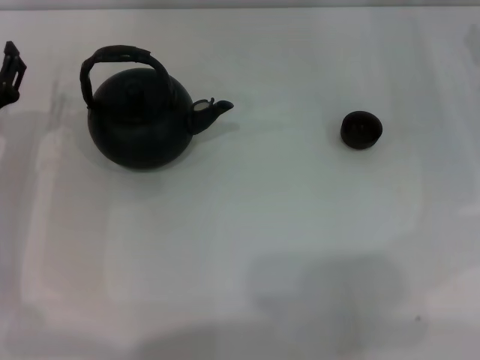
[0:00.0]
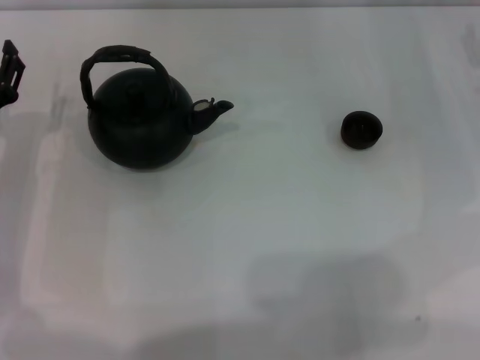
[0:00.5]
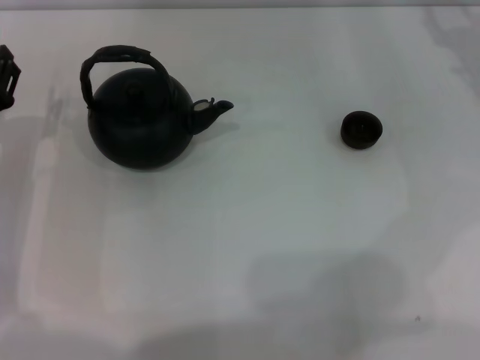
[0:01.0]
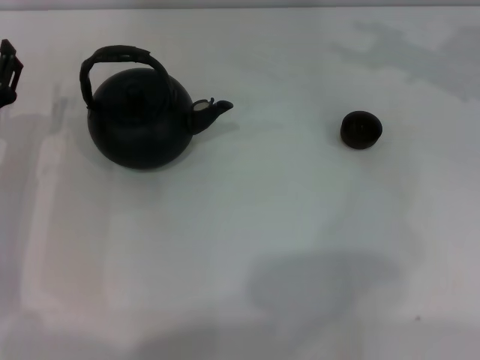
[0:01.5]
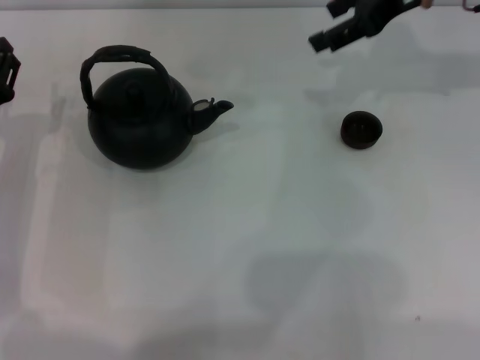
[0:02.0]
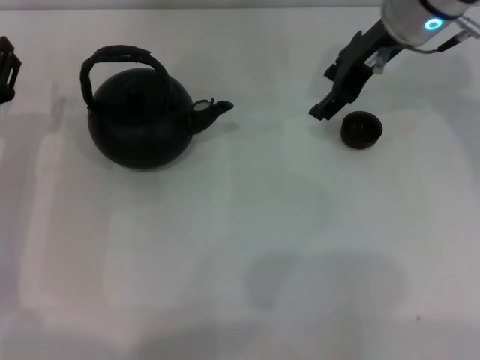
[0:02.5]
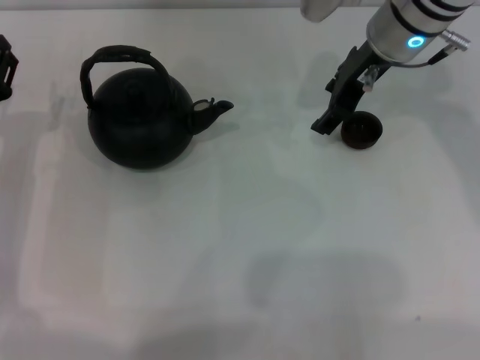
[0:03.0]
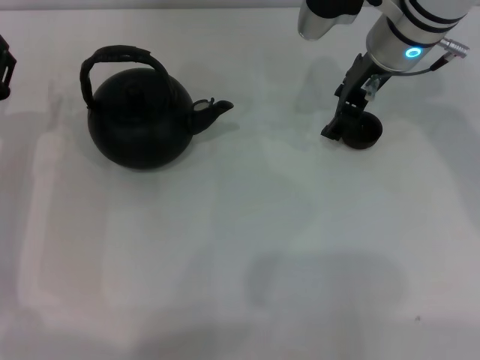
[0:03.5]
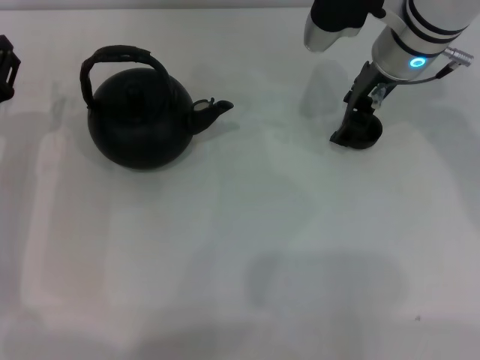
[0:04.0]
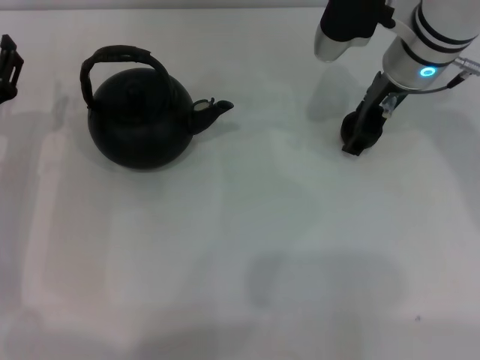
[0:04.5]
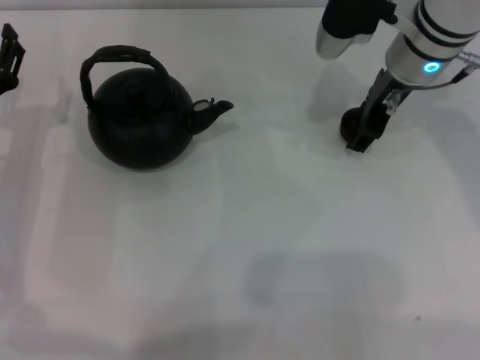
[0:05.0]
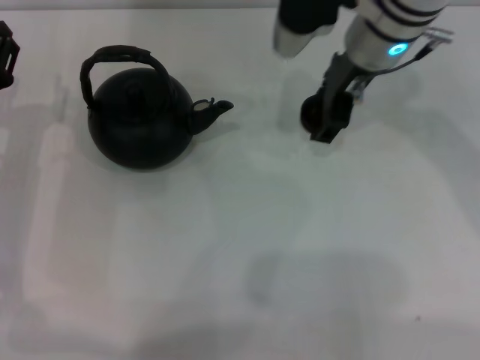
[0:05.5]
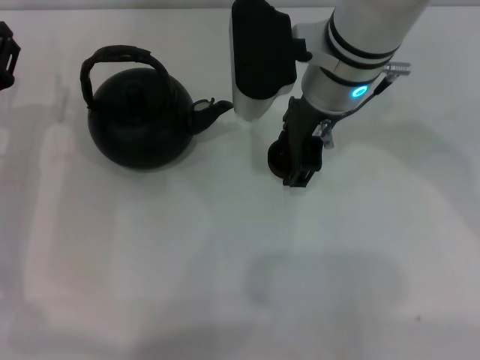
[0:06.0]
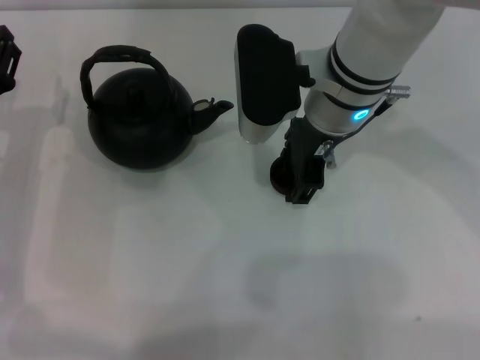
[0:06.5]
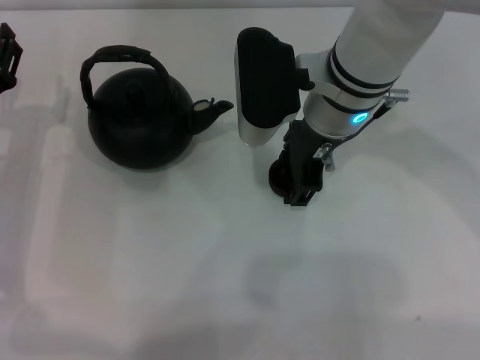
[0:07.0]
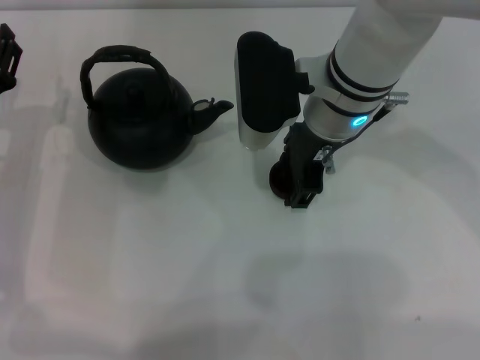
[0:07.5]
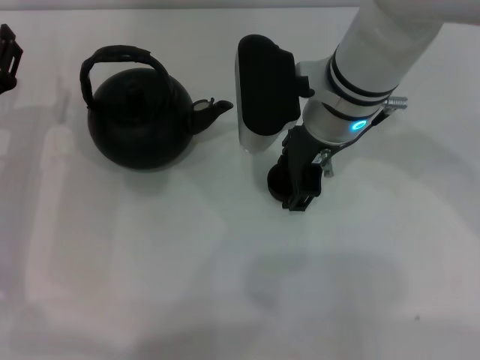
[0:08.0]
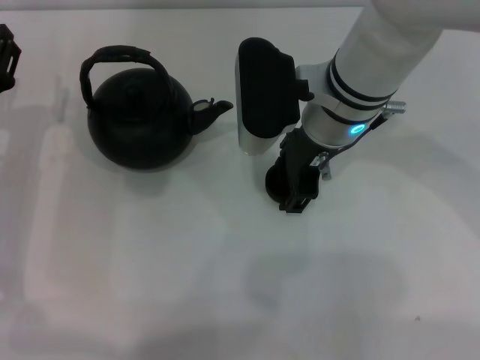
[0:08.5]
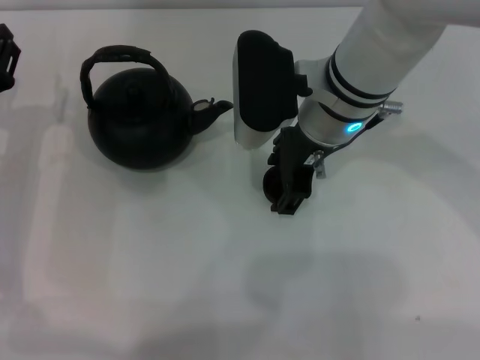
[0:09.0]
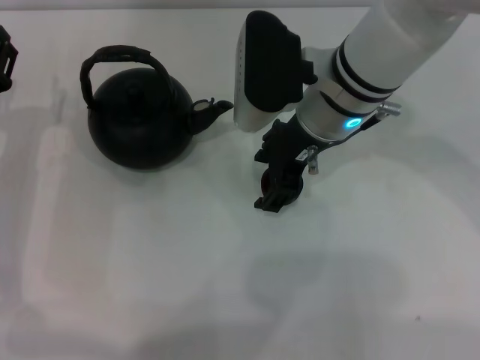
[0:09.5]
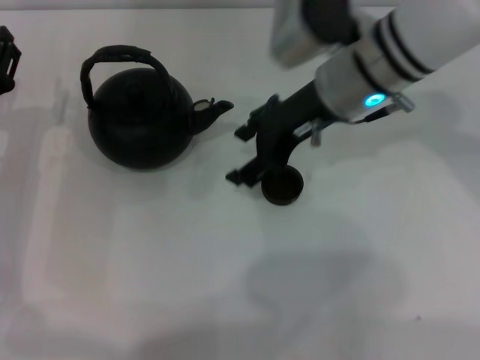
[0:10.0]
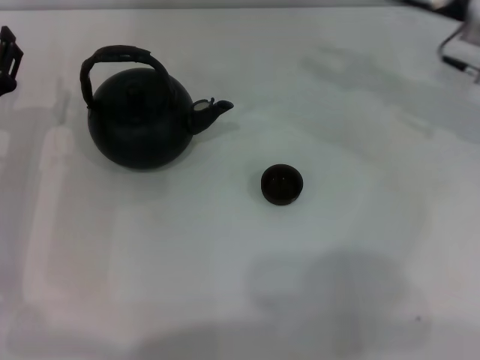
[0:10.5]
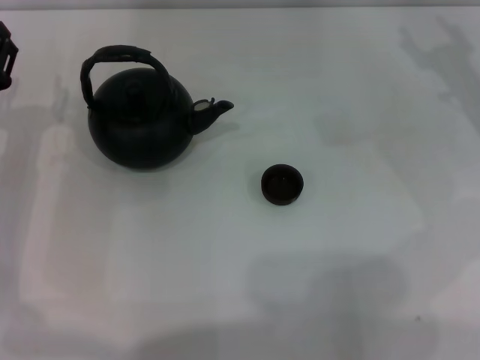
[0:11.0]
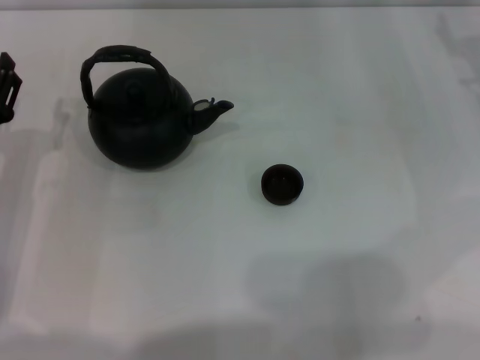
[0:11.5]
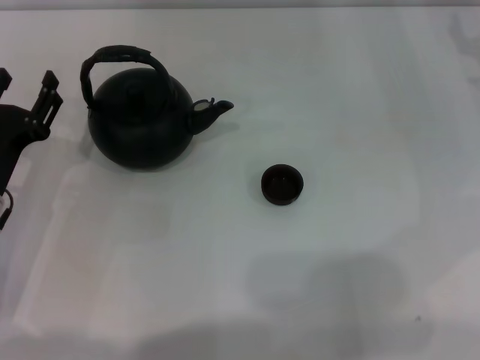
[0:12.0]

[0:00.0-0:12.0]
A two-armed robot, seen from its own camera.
Task of the whole recording: Grasp the handle of the teapot with one hand and pour tea into the teacup.
Step, 0:00.0 to 0:05.5: Pick up the teacup with the right gripper.
Step, 0:06.0 to 0:09.5: Place the teacup in the center of view with the right gripper.
0:00.0 to 0:02.0: The right gripper shifts roughly 20 cm upward, to the left and forward.
0:02.0 to 0:04.0: The right gripper is displaced downward and to the left by some 10 cm.
0:04.0 to 0:06.0: The right gripper goes some 10 cm to the left.
0:06.0 to 0:08.0: The grippers move only a little.
0:10.0 to 0:12.0: The right gripper travels to the right by approximately 20 cm.

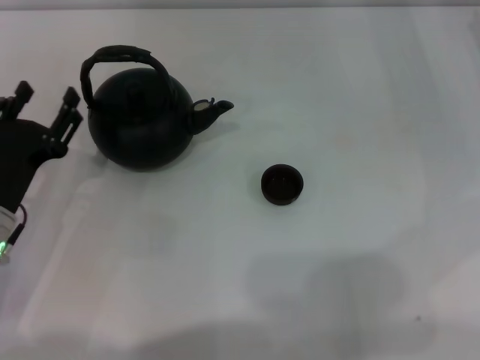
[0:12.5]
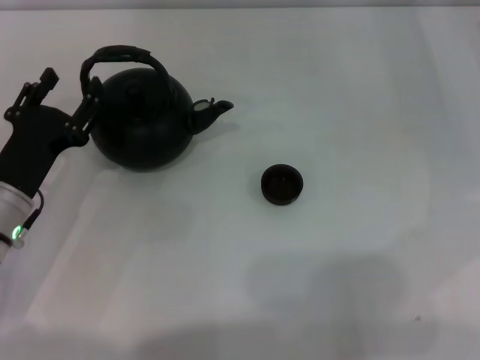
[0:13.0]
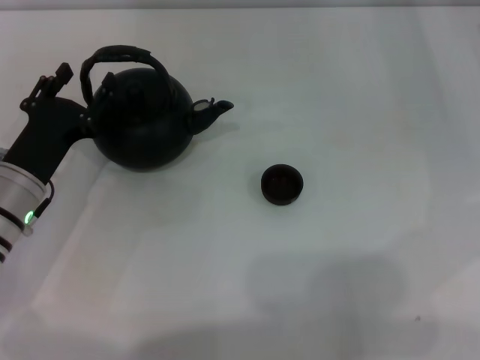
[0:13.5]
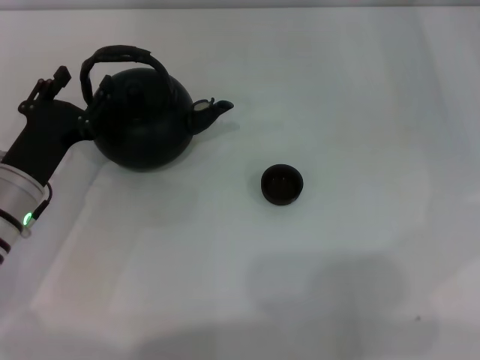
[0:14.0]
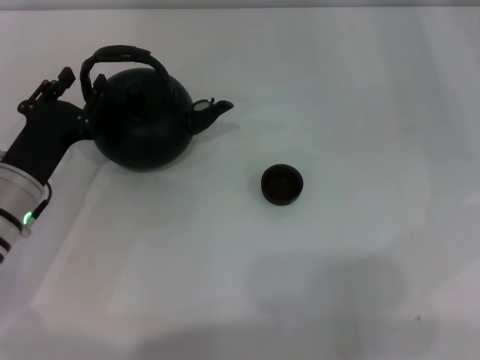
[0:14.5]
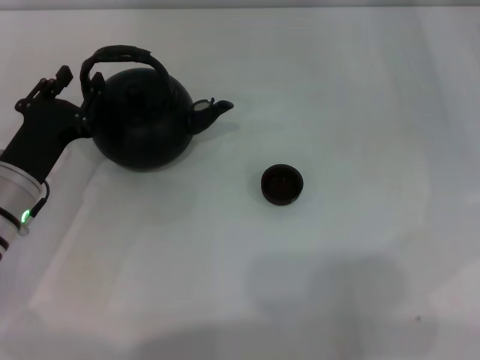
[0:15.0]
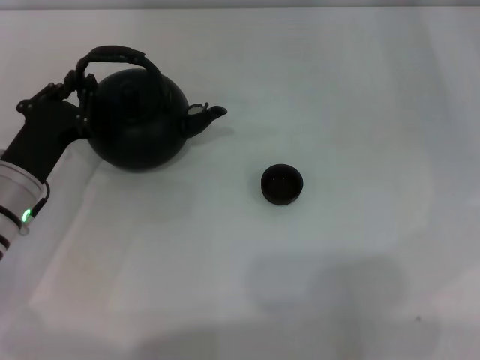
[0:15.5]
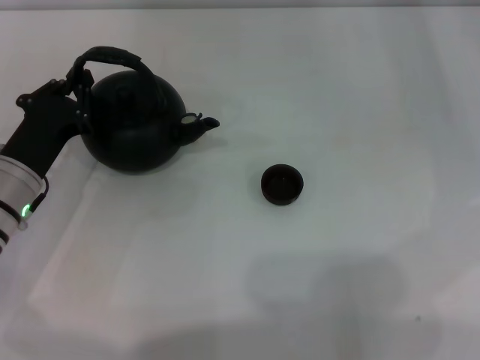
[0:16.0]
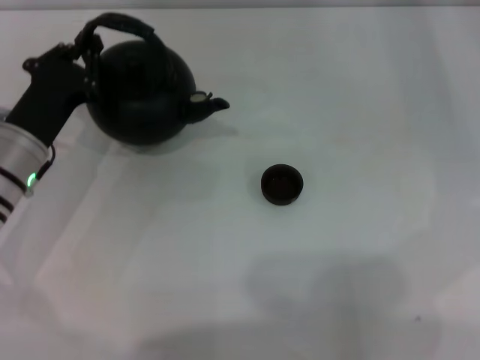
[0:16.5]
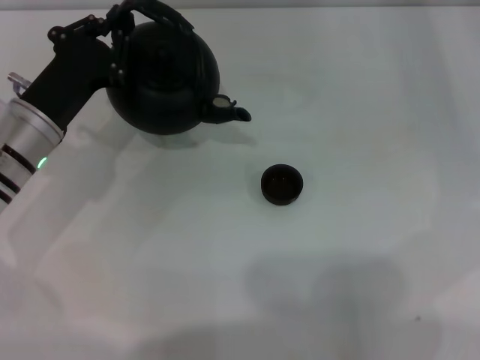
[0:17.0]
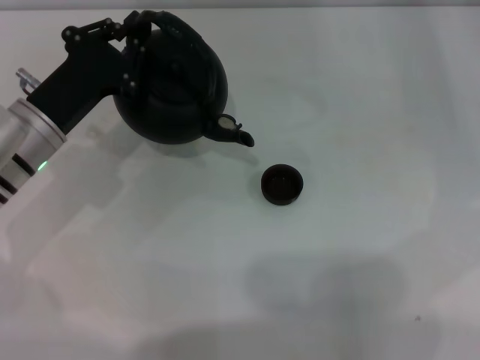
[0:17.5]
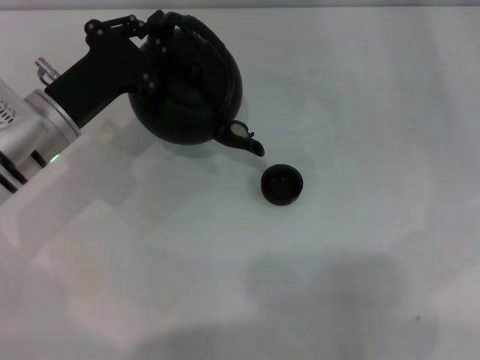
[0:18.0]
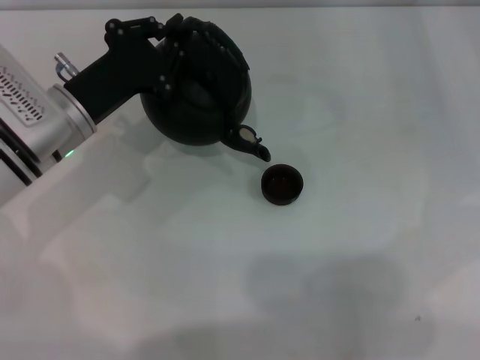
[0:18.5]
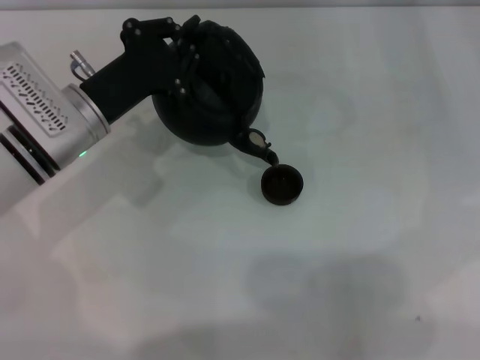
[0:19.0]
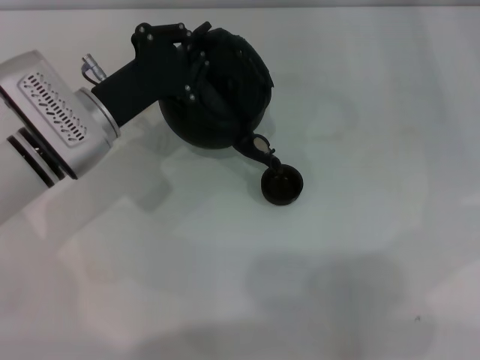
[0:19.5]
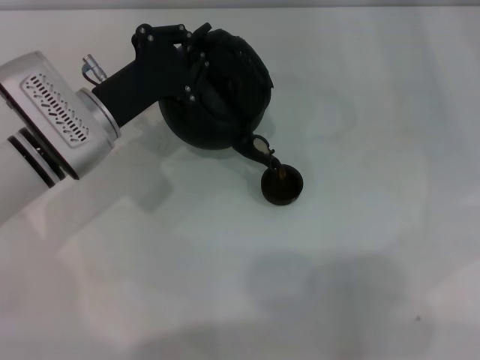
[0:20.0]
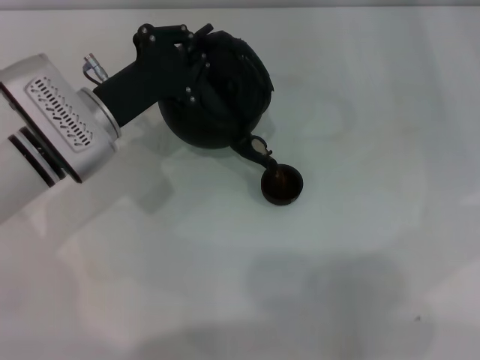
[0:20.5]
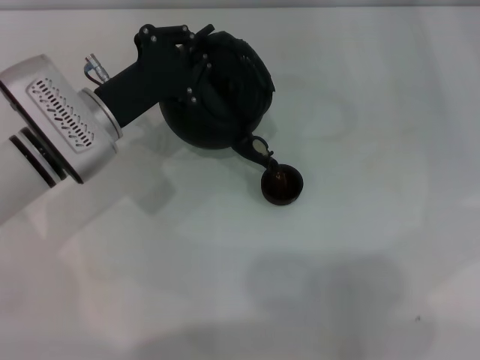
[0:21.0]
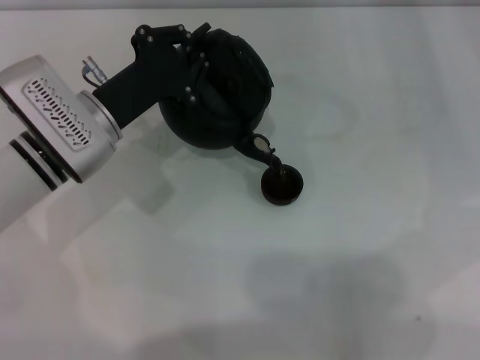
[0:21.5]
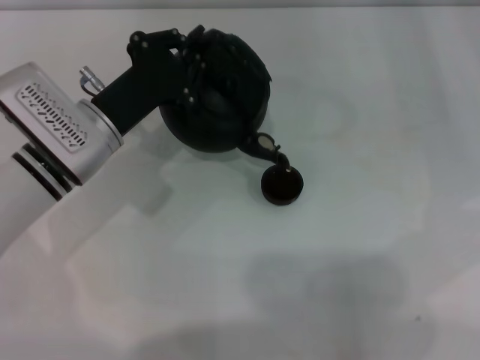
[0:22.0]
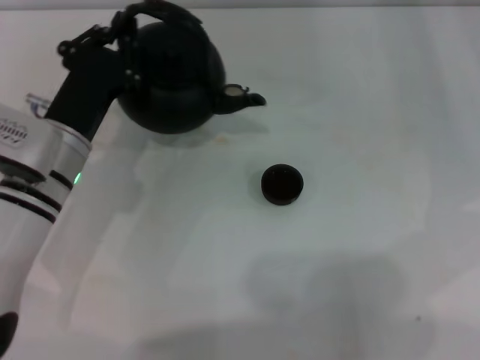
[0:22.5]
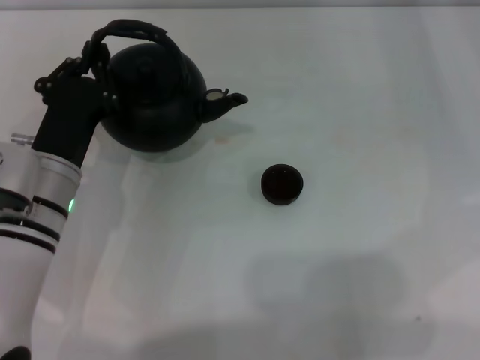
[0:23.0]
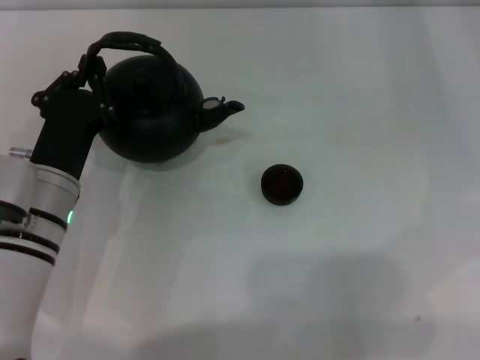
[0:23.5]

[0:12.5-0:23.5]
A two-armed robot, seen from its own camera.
Task of the whole recording: Grasp the handle of the teapot with one hand and pour tea into the teacup.
Step, 0:12.5 to 0:16.0: Pick up the teapot with the left gripper.
Step, 0:16.5 to 0:22.0: Pour tea into the teacup with the left gripper.
0:12.5 to 0:14.5: The grippers make only small movements.
0:14.5 to 0:16.0: The left gripper closes.
0:16.0 to 0:18.0: The left gripper moves approximately 5 cm.
0:18.0 to 0:20.0: The grippers make only small movements.
0:20.0 to 0:21.5: Both grippers stay put.
0:21.5 to 0:23.5: The left gripper shifts approximately 5 cm backward.

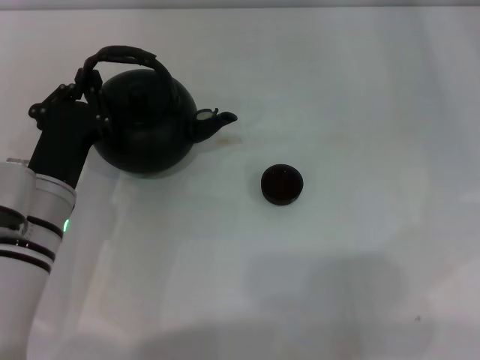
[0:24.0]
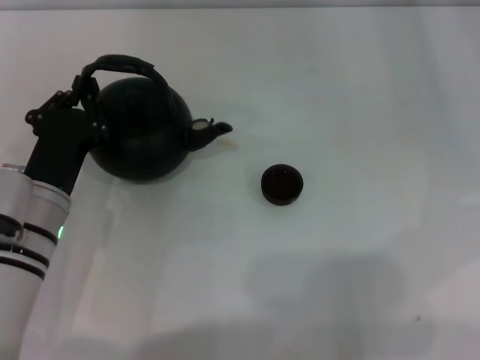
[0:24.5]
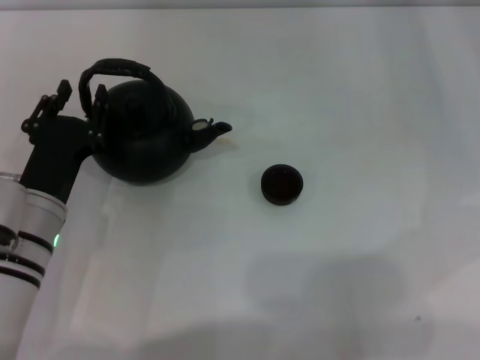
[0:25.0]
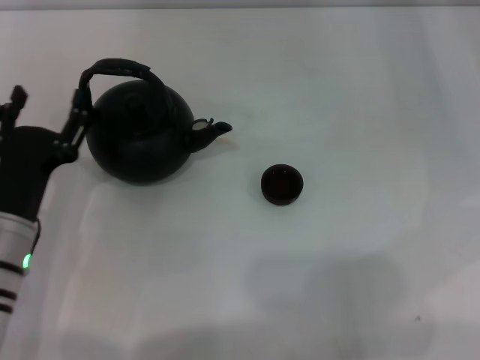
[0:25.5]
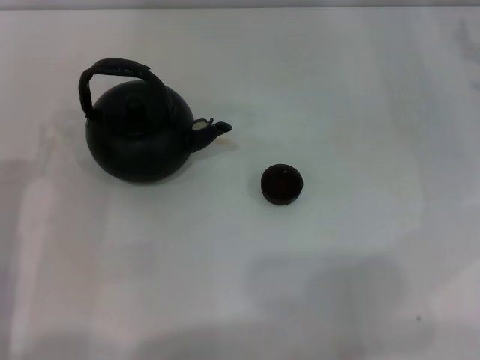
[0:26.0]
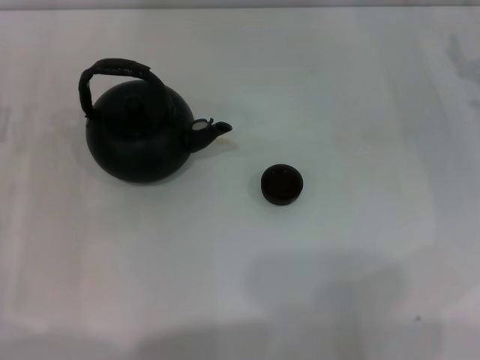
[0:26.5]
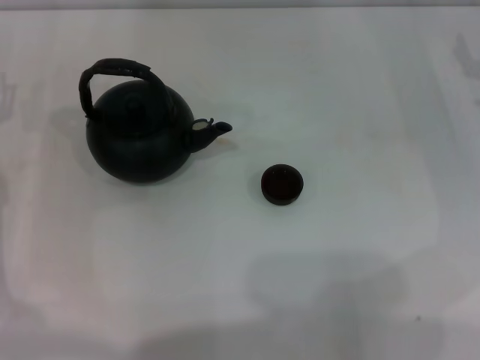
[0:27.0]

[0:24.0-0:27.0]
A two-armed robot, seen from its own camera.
Task of the whole recording: Grasp the handle of the teapot with one hand and pour tea into the teacup.
0:24.0 to 0:25.5: The left gripper opens up.
0:25.5 to 0:27.0: The left gripper moves to the left and forward, about 10 cm.
